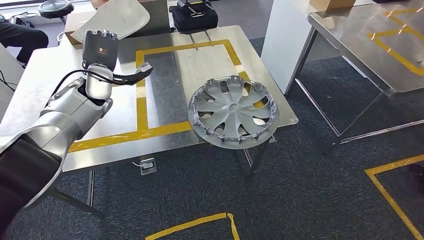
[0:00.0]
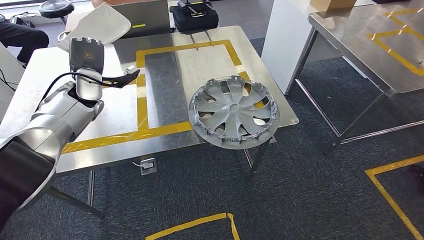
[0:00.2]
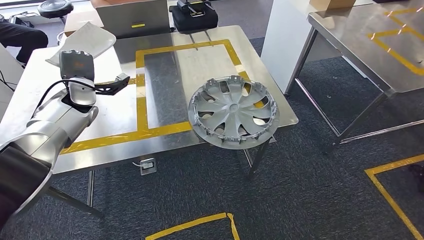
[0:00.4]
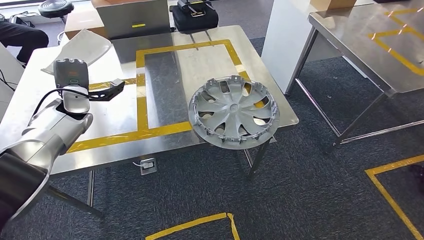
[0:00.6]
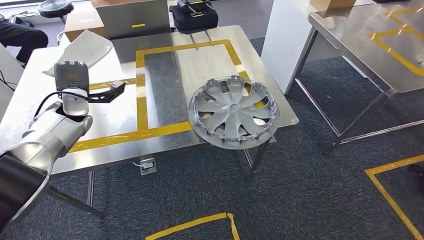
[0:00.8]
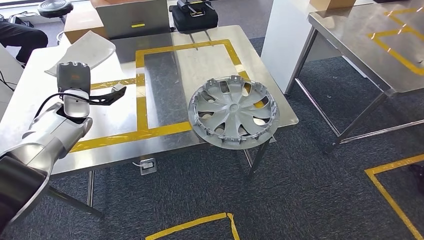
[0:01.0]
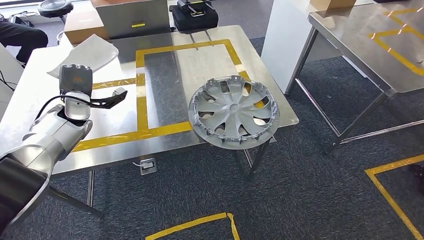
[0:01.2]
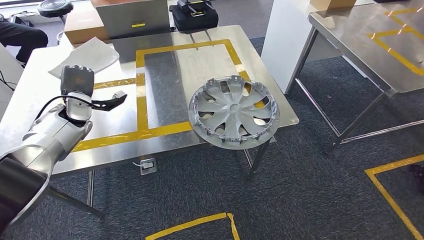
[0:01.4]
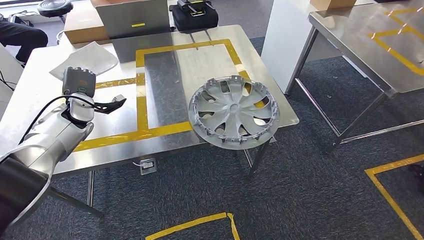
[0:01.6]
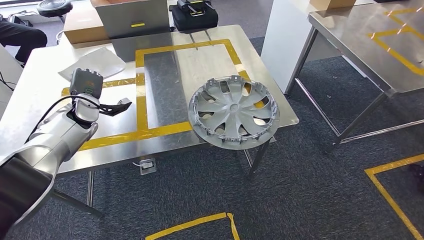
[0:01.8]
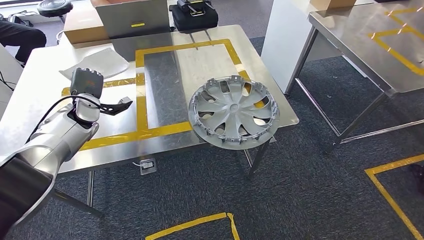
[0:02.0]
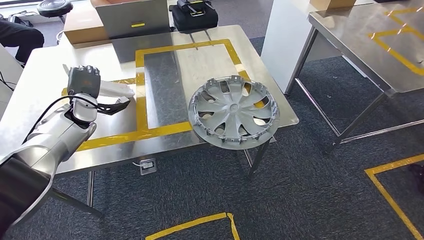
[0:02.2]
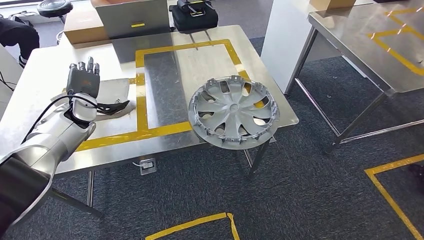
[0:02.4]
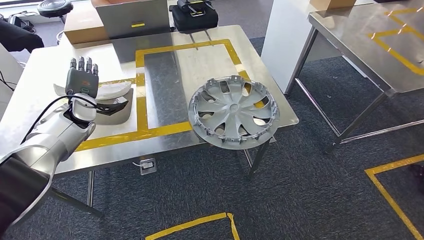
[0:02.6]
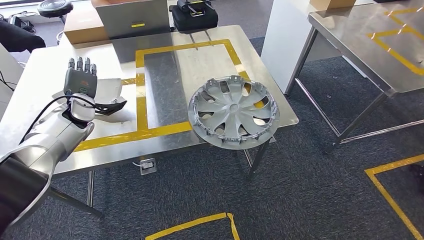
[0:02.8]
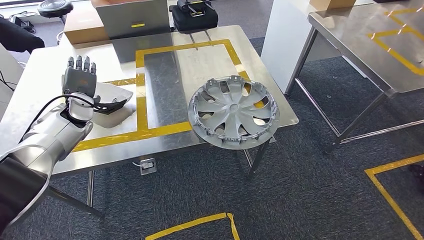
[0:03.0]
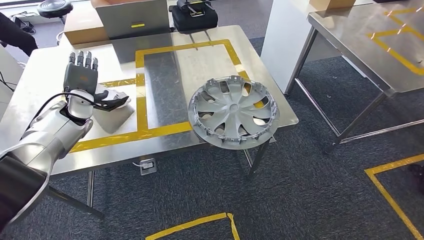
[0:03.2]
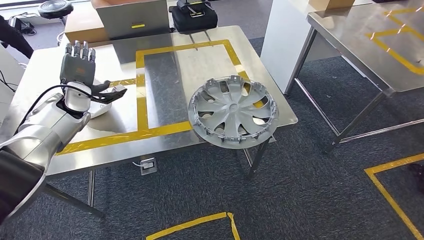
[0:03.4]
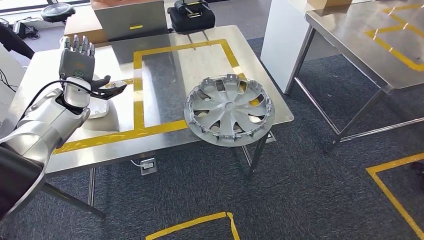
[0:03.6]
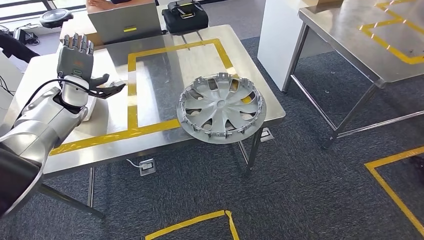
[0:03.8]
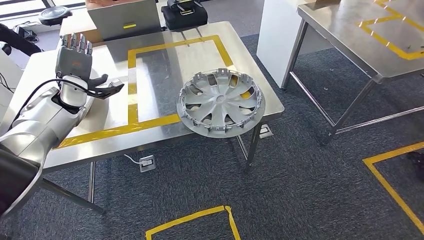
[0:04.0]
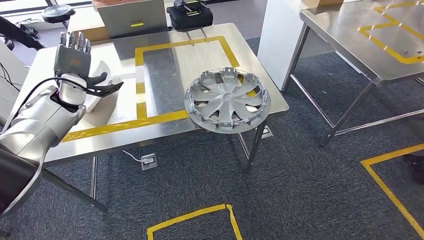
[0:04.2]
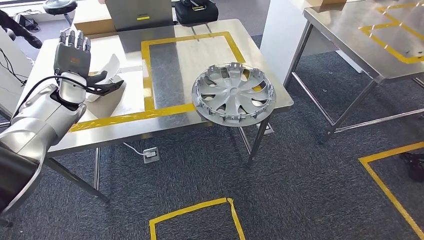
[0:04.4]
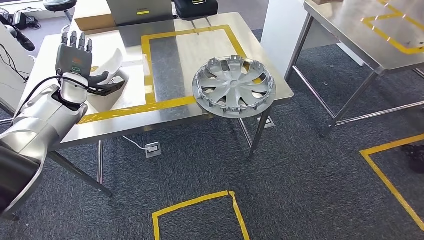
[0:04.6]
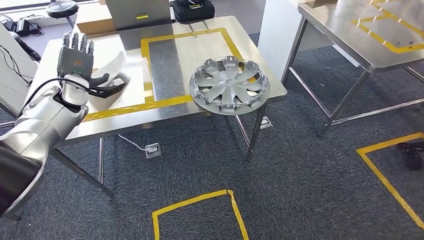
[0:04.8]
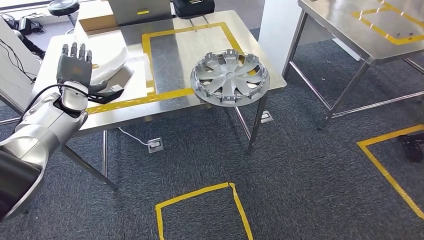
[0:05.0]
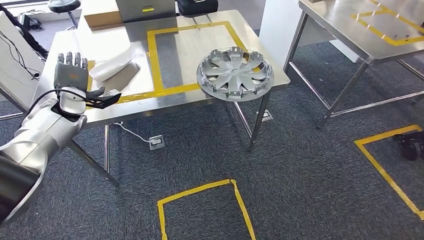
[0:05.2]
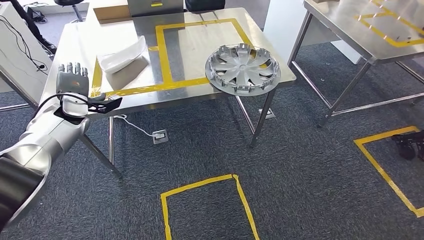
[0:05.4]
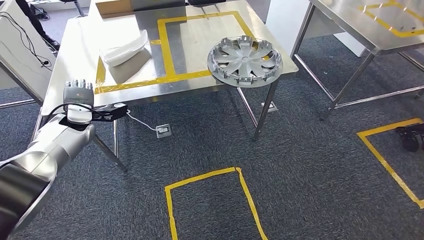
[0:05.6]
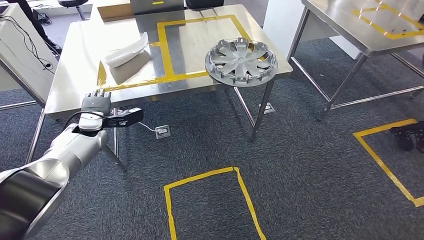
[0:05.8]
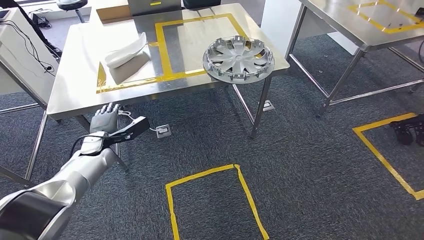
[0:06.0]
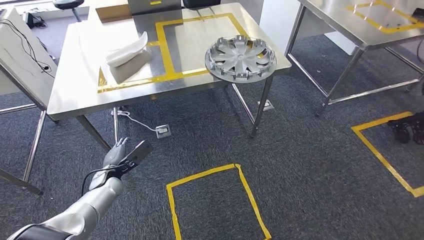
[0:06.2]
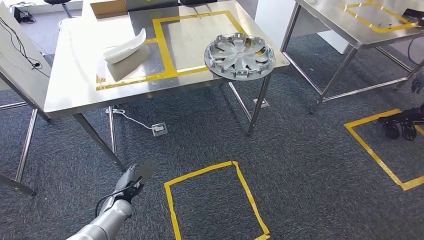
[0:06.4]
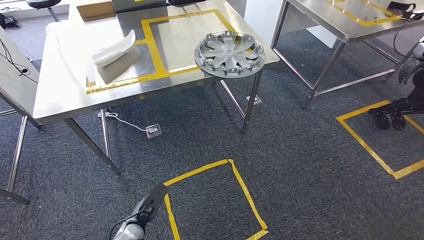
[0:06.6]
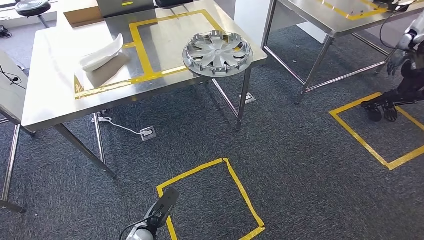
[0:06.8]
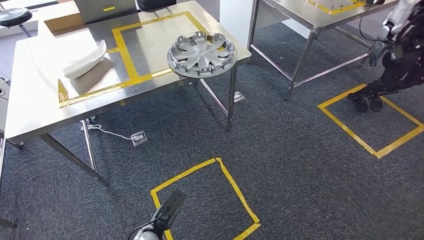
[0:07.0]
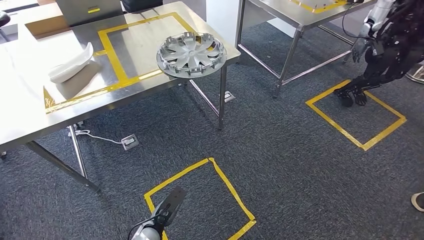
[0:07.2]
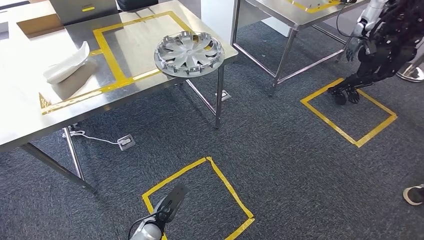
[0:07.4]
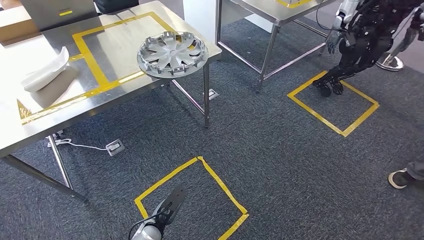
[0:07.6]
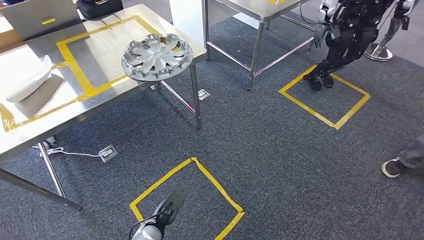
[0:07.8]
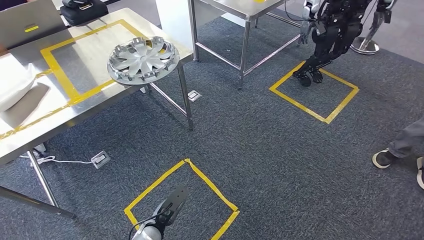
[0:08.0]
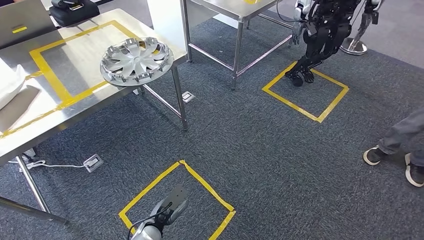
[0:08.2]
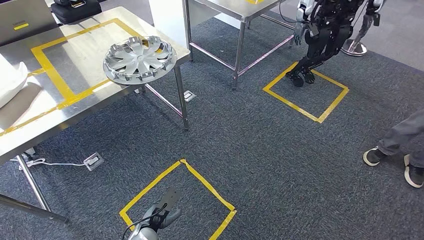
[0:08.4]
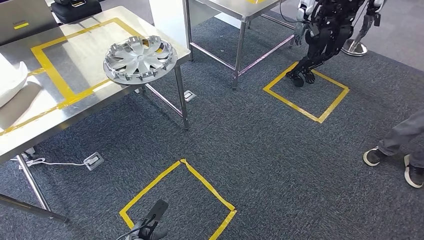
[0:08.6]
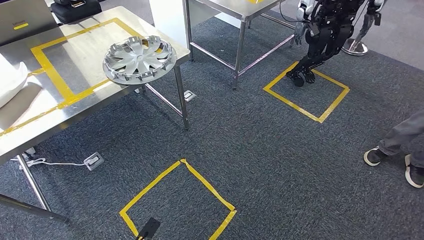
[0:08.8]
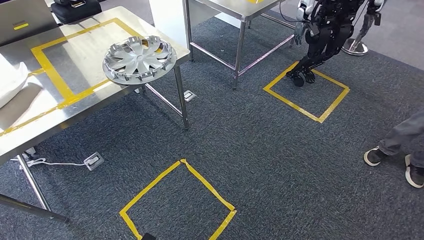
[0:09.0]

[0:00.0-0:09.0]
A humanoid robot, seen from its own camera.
Step, 0:00.0 to 0:04.0: Insert the small component into the corresponding slot on the workbench.
Step, 0:04.2 to 0:09.0: Move to the initial position of the workbench.
0:00.0 to 0:01.6: The left hand heads to the left and downward, covering some 10 cm.
0:01.6 to 0:03.0: Both hands stay put.
